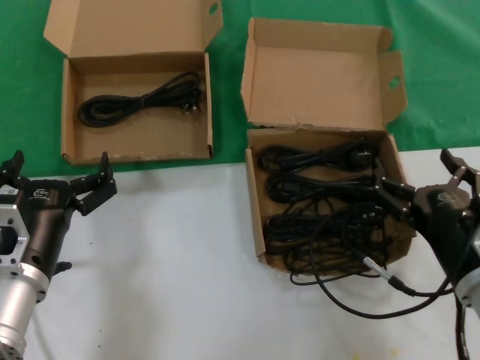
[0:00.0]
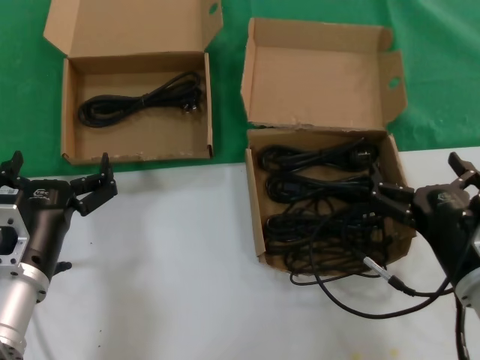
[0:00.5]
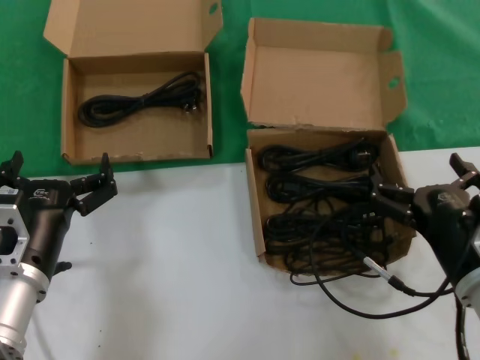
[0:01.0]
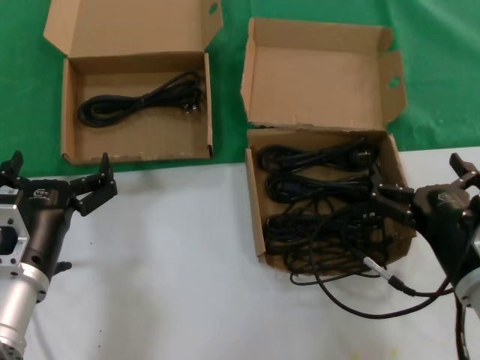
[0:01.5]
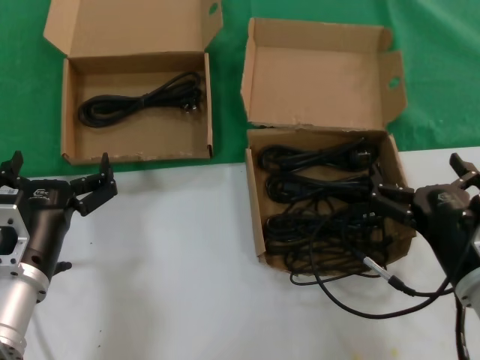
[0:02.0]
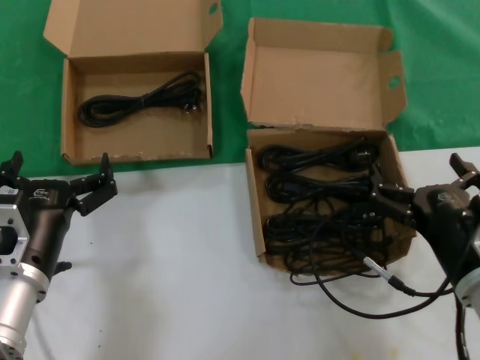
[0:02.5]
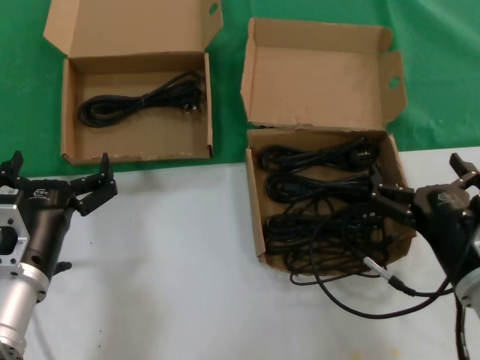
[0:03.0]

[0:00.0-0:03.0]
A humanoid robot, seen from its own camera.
Task of the whole recording: take the parts from the box containing them and put them into an empty box.
0:00.0 to 0:03.0: The two hands keep their place.
